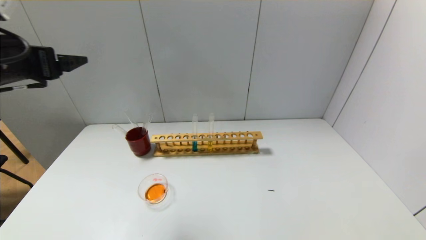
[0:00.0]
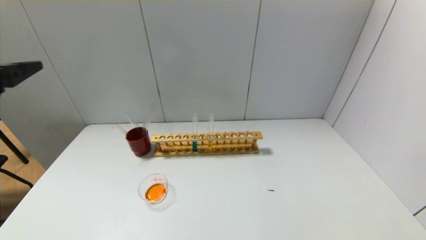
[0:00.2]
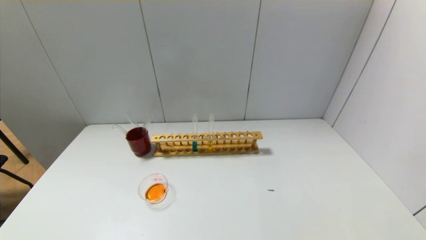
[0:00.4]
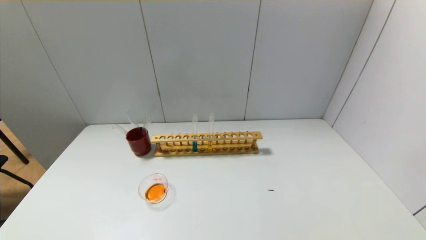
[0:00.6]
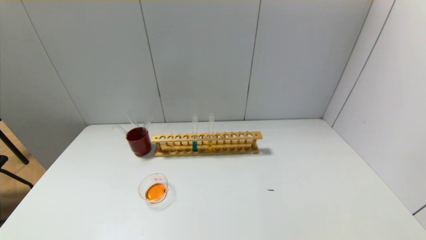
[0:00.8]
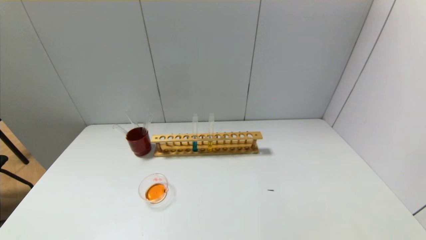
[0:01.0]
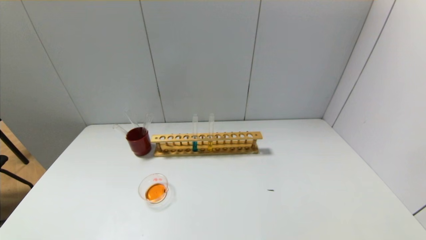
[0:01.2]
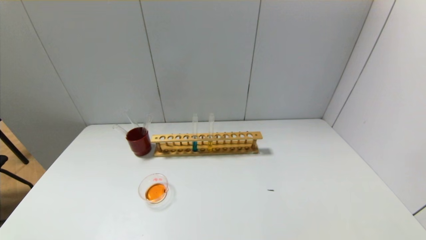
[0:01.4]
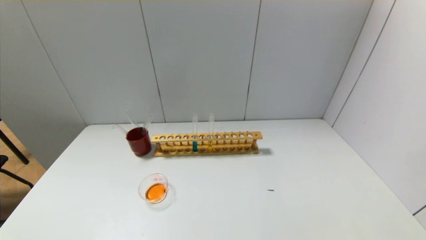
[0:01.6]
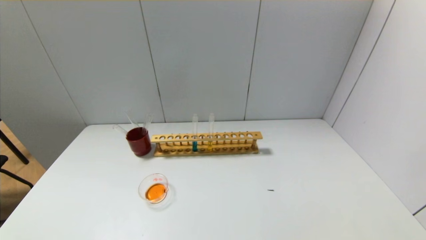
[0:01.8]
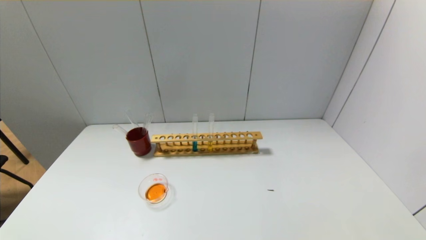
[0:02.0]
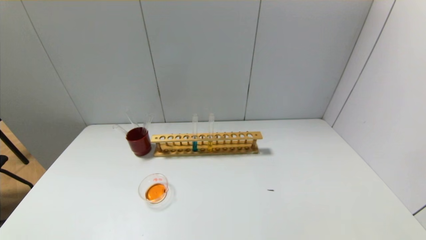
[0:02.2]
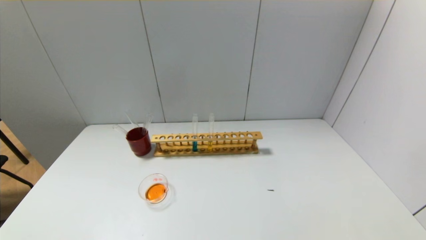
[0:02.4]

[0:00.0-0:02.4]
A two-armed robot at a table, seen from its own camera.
0:00.0 to 0:01.2: The left gripper heads backward and downward, covering about 35 cm.

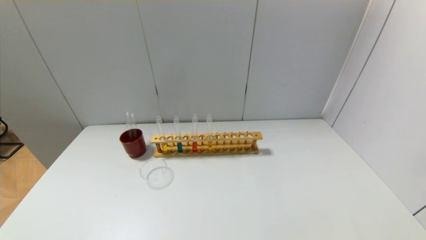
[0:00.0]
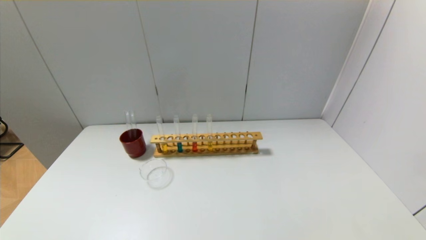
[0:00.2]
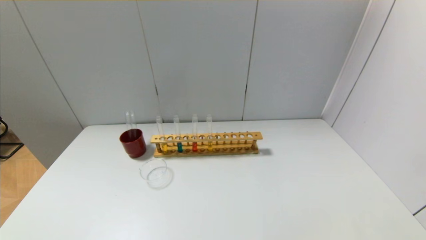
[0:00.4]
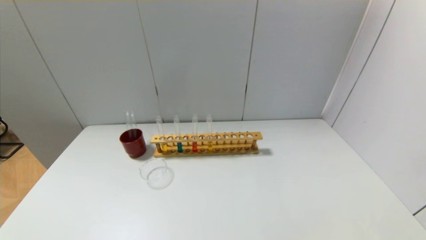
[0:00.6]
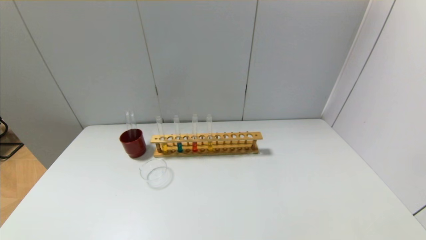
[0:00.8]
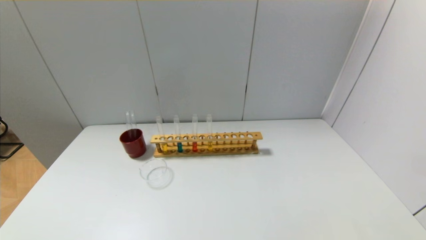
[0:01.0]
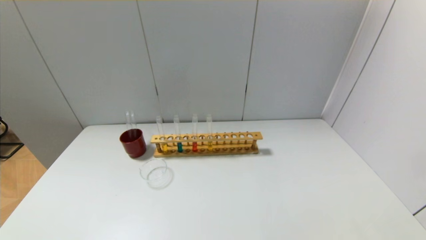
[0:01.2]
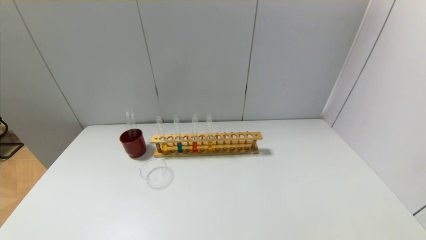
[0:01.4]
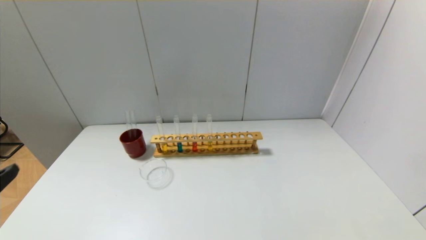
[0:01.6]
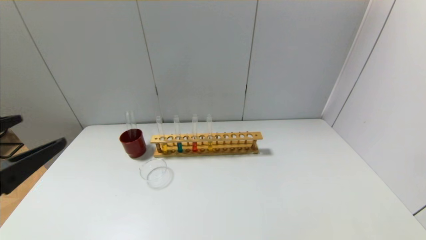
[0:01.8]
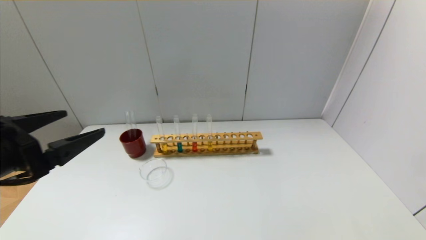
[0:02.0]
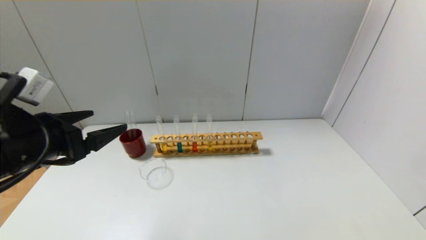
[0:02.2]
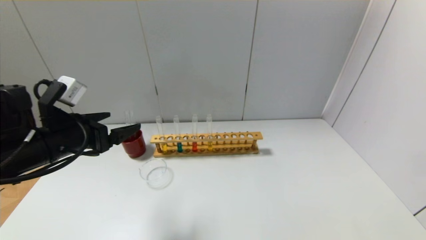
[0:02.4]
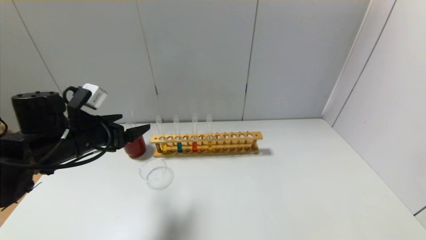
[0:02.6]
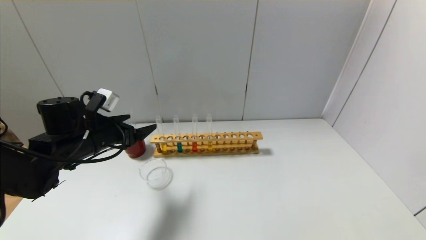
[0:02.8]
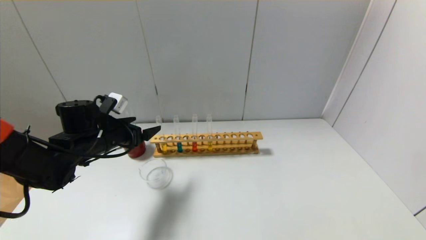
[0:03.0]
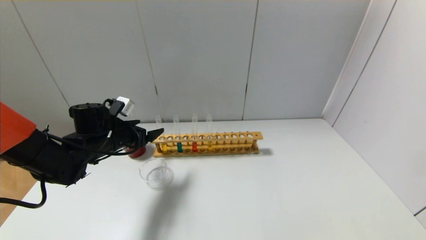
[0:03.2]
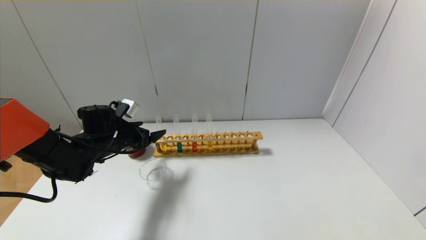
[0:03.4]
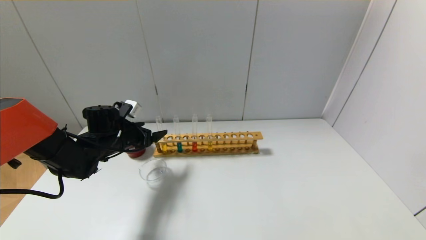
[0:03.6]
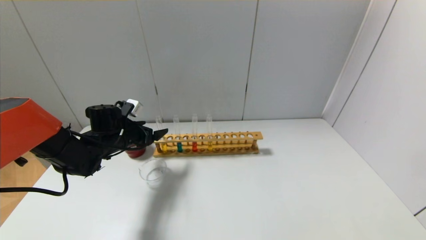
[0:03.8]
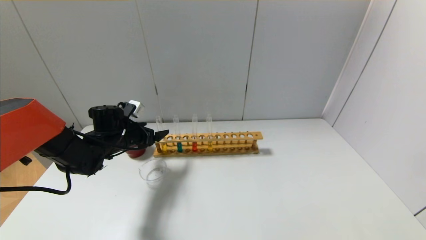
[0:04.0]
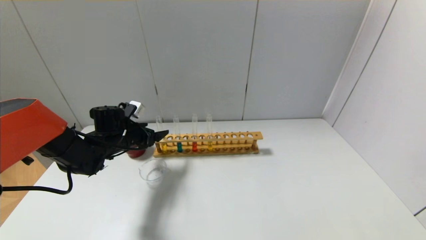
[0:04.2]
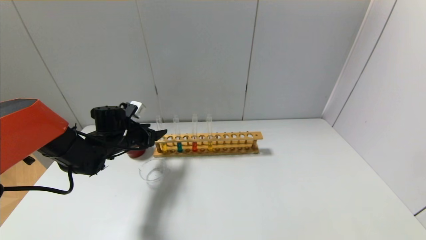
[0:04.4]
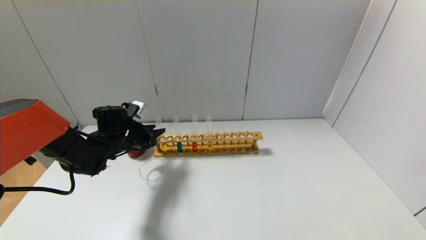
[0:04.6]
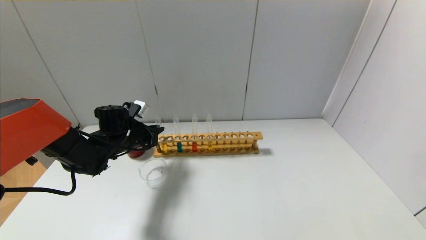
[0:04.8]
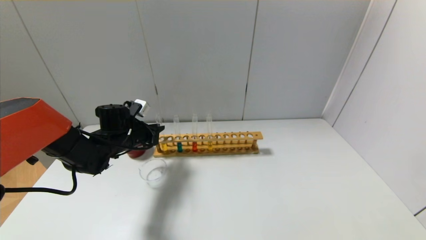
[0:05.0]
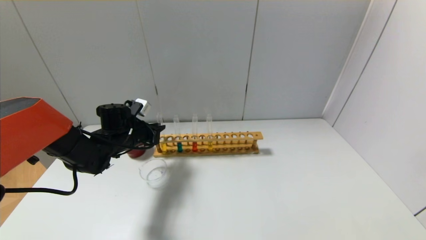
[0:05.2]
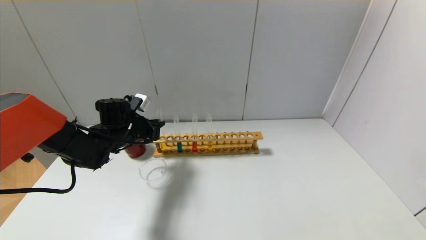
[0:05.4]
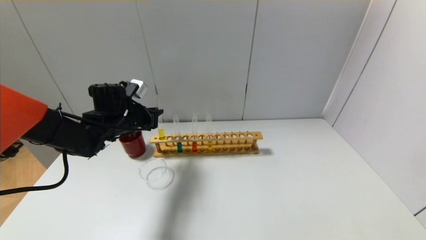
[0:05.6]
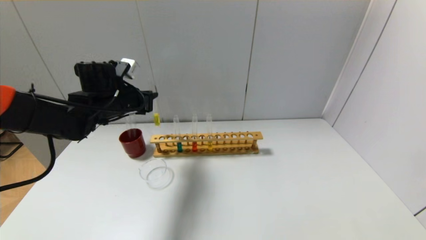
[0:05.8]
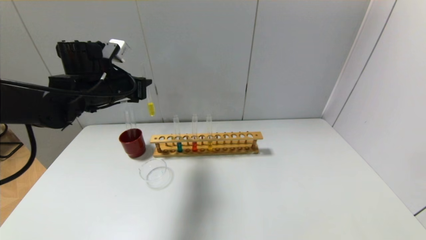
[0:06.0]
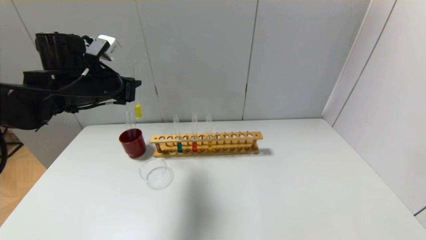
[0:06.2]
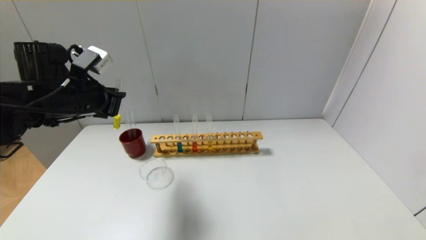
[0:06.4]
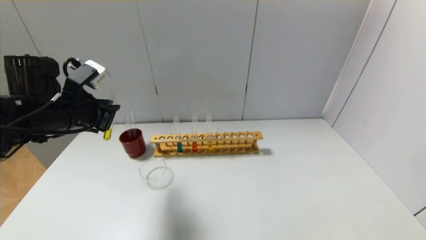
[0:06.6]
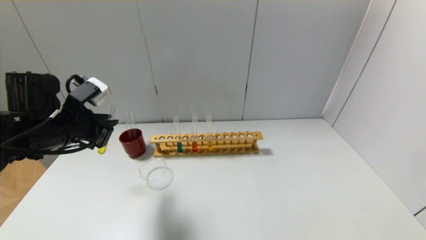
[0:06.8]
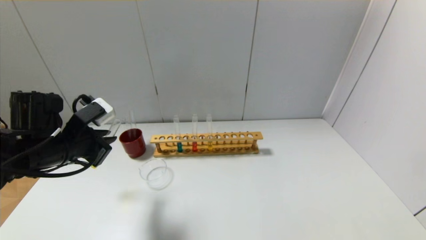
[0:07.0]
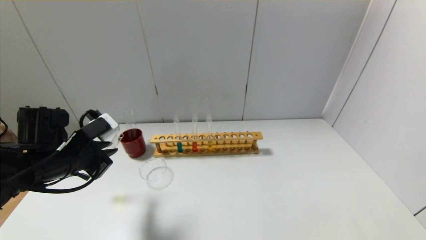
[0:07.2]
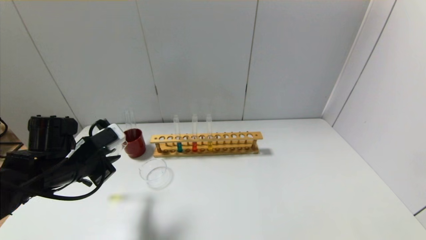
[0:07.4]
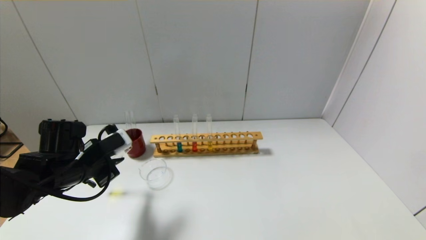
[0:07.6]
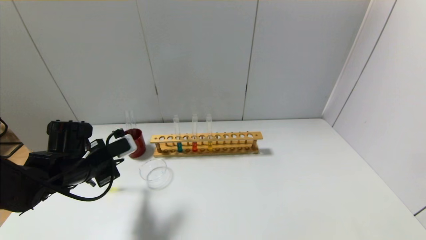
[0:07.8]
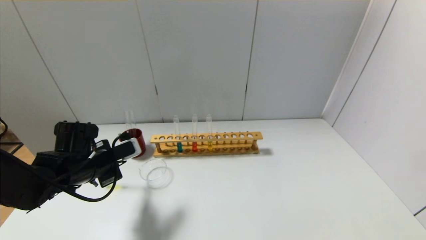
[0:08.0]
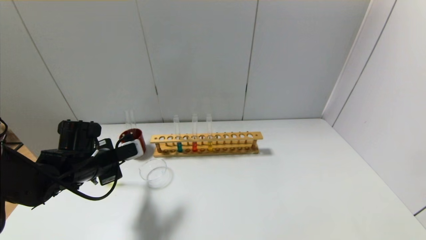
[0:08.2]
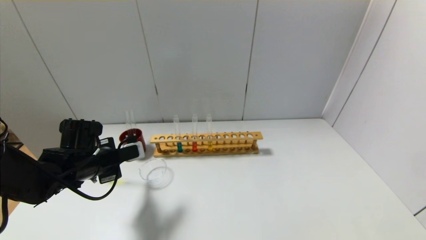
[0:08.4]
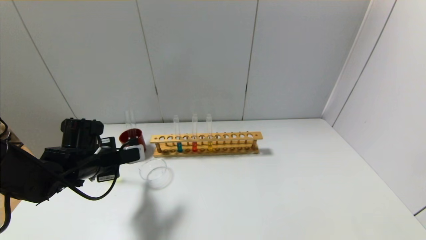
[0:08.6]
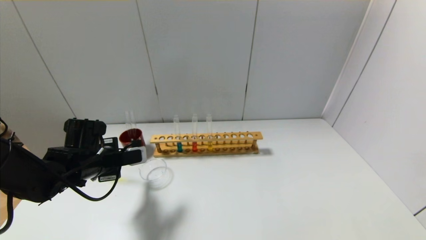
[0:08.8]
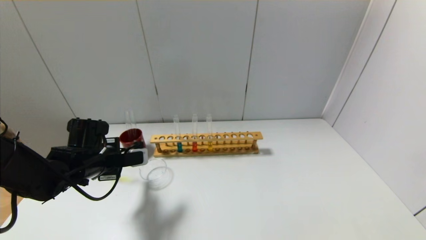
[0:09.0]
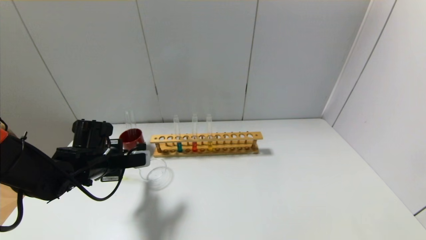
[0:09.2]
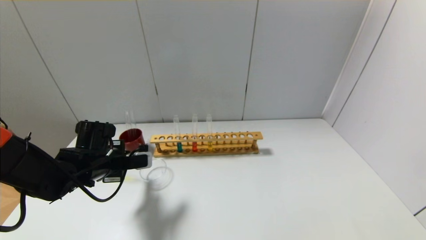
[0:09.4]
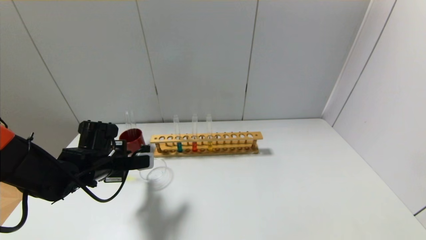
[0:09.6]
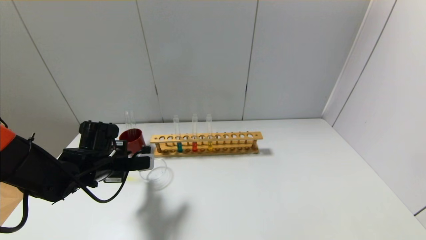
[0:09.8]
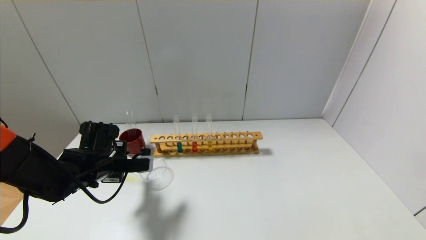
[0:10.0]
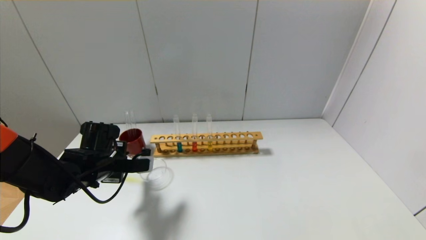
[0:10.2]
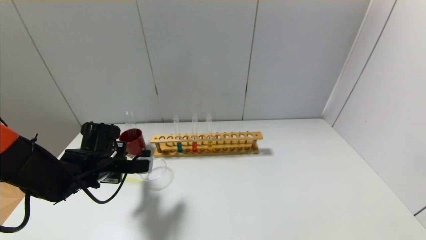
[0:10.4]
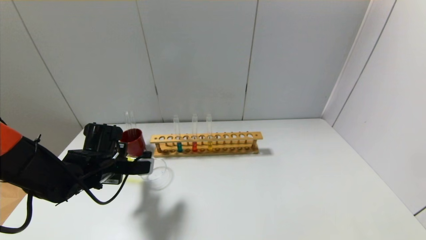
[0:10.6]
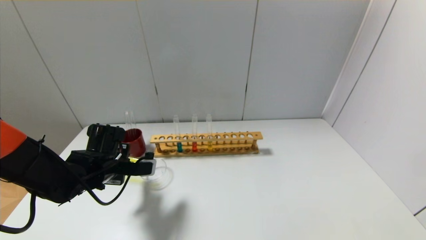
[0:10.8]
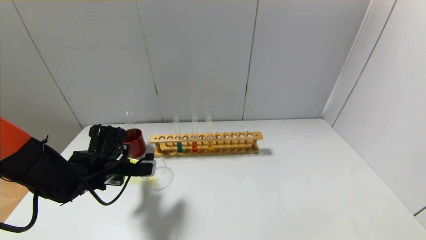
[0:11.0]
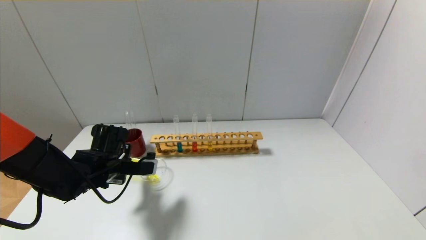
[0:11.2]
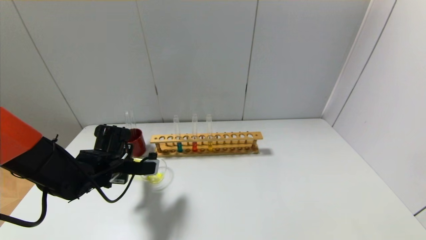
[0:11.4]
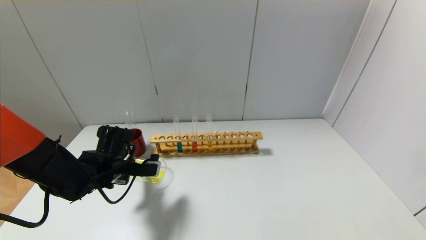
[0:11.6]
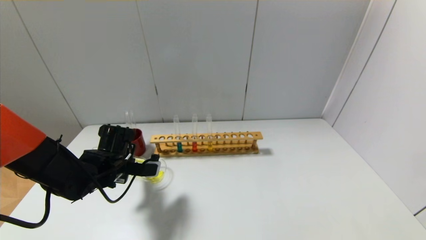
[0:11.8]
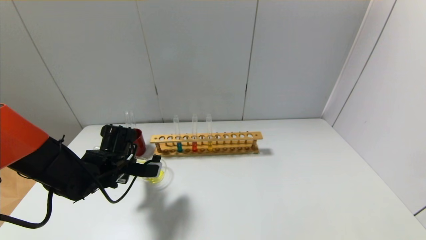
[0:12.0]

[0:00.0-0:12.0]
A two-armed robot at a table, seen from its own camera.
Step, 0:00.0 to 0:04.8: Grasp the yellow reagent with the left gripper.
0:01.6 to 0:03.0: The left gripper travels forward and downward by roughly 30 cm.
0:03.0 to 0:04.4: The left gripper goes some 5 cm forward, and closes.
0:04.4 to 0:06.0: The left gripper goes about 15 cm upward, and closes its fingers.
0:06.0 to 0:07.6: The left gripper shifts some 15 cm downward and backward.
0:09.0 to 0:12.0: The grippers stay close to where they were, moving slightly.

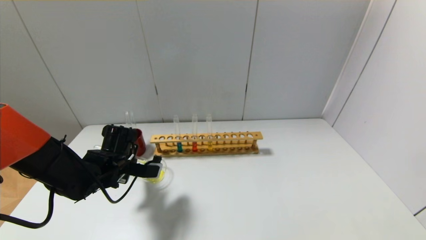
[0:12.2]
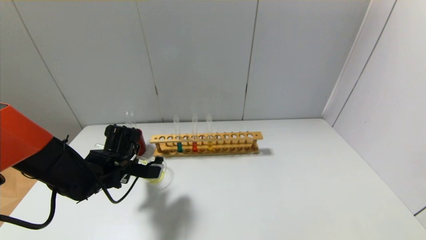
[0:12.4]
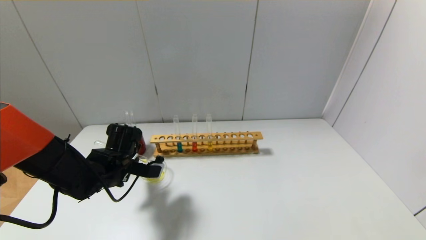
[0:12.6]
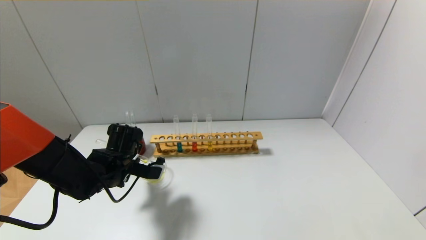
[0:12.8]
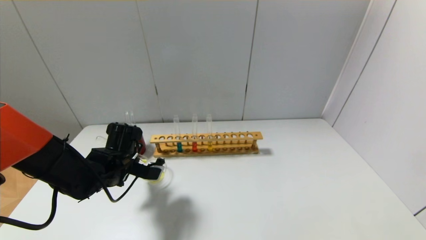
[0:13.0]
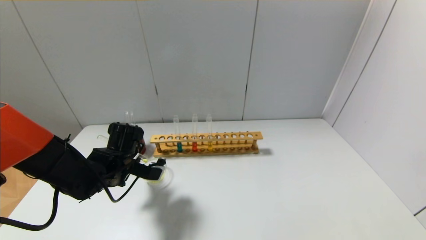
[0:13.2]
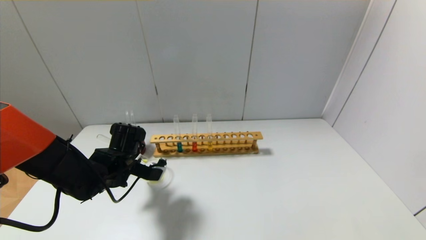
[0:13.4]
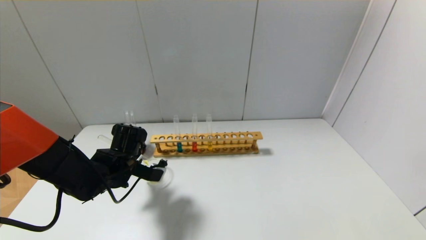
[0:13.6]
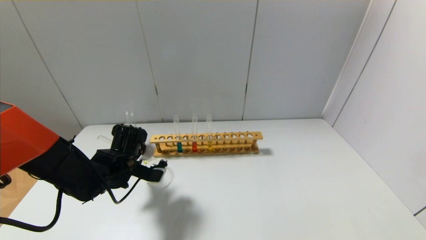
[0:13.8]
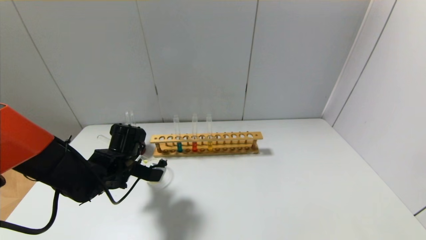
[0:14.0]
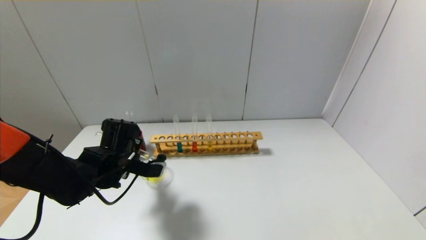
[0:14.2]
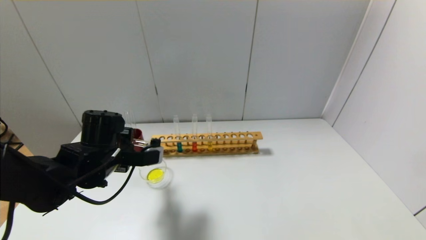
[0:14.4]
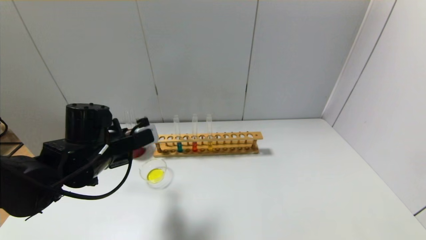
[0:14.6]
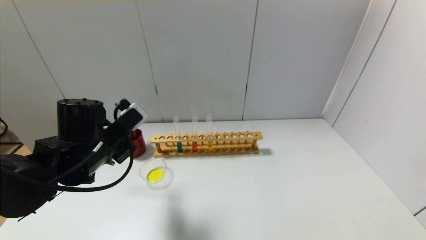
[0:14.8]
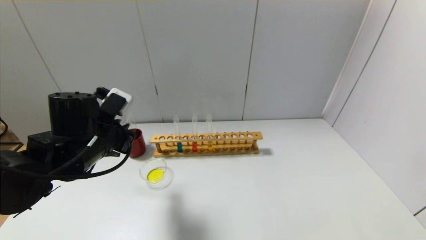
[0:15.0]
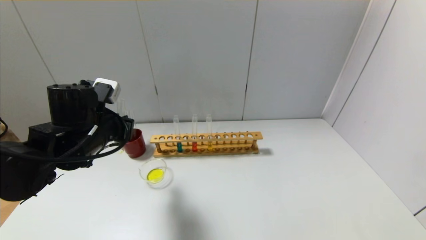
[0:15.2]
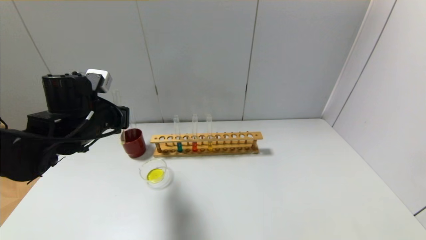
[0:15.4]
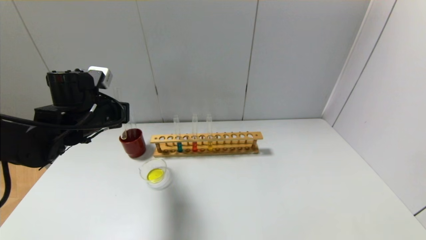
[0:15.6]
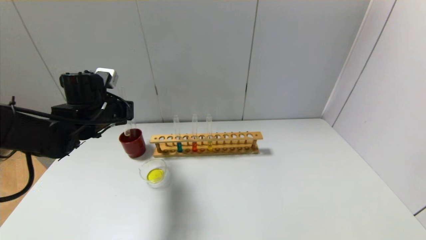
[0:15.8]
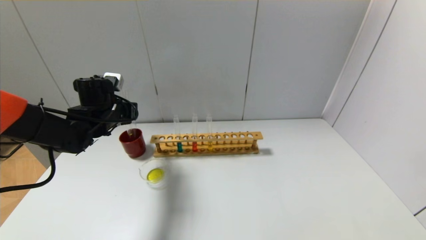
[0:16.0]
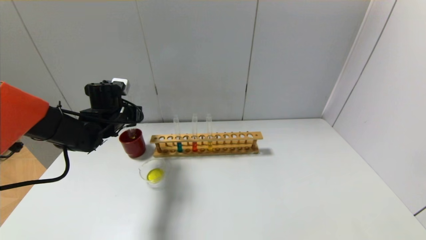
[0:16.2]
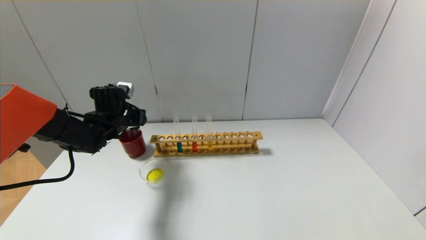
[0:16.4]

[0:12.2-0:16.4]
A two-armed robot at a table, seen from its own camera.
0:12.2 to 0:13.6: The grippers stay close to where they were, moving slightly.
0:13.6 to 0:15.0: The left gripper moves upward, roughly 10 cm.
0:15.0 to 0:16.4: The left gripper shifts approximately 15 cm forward.
